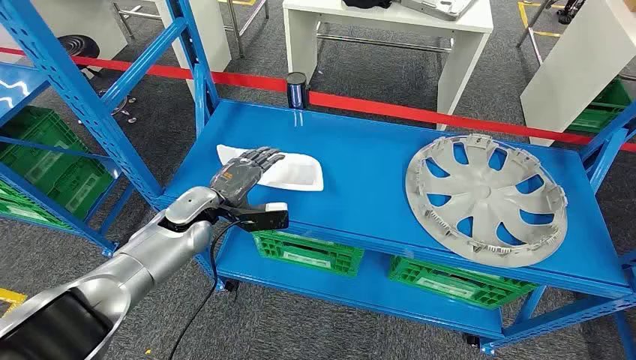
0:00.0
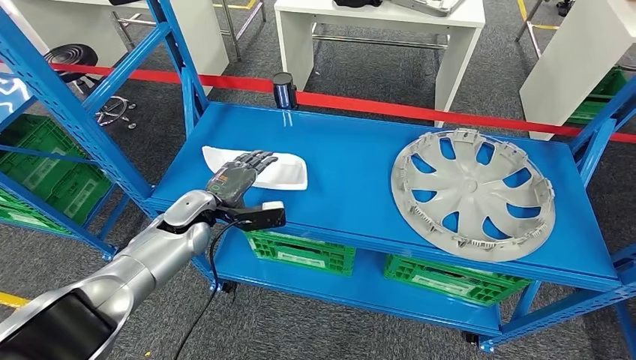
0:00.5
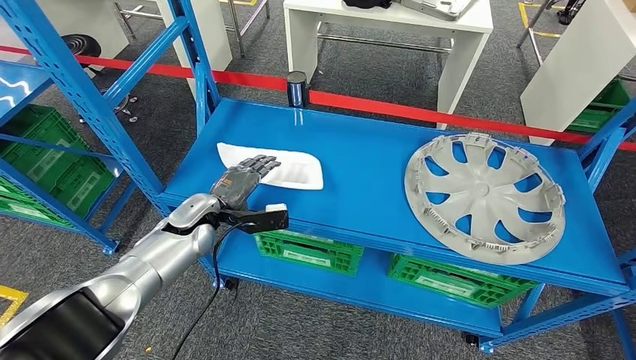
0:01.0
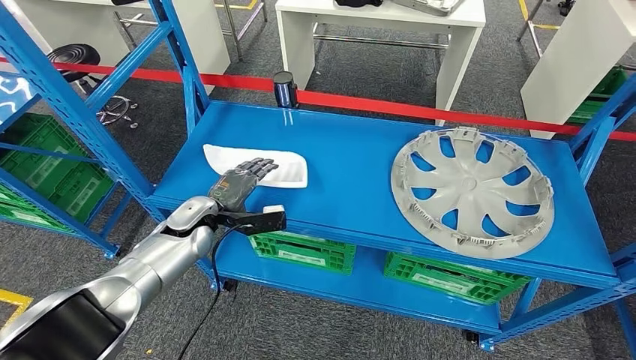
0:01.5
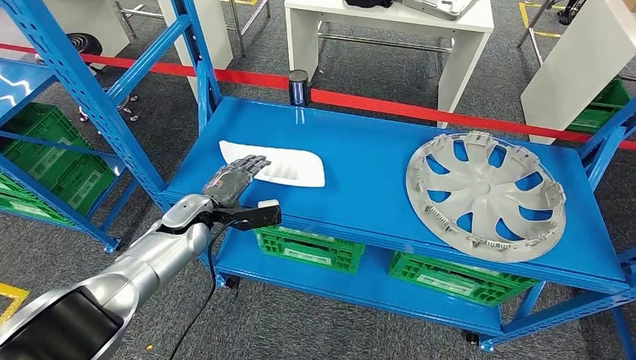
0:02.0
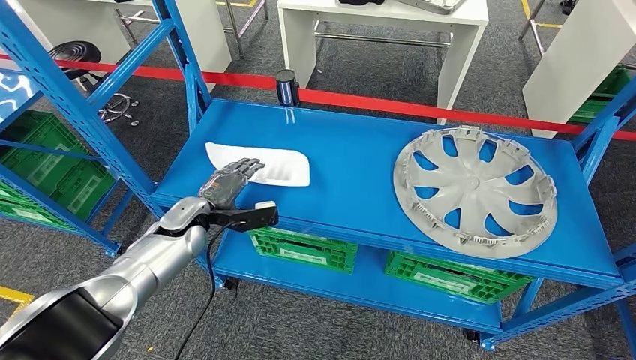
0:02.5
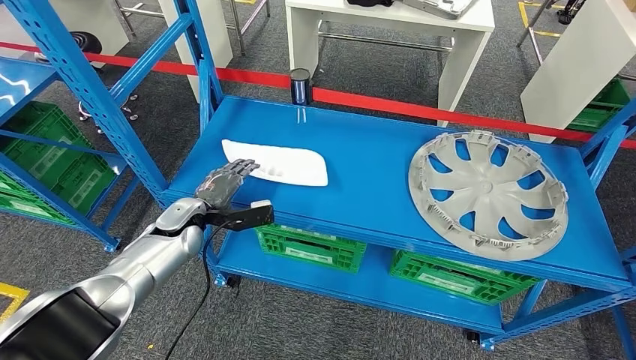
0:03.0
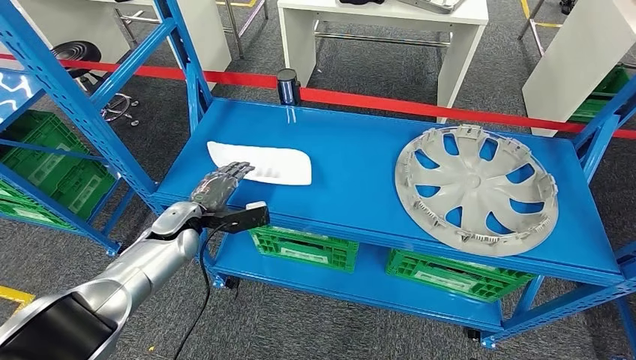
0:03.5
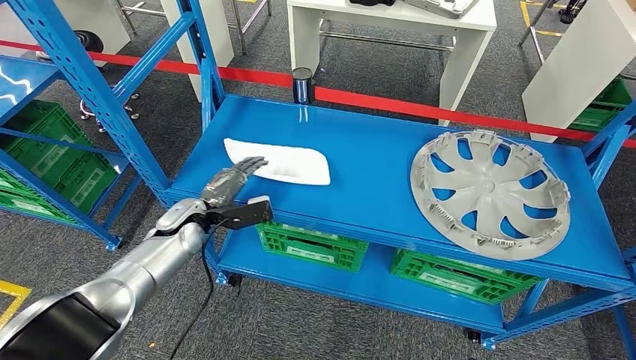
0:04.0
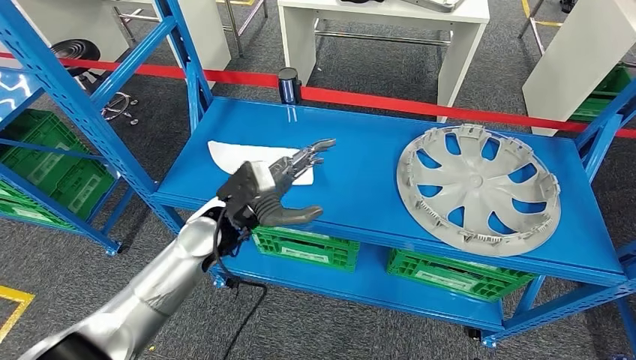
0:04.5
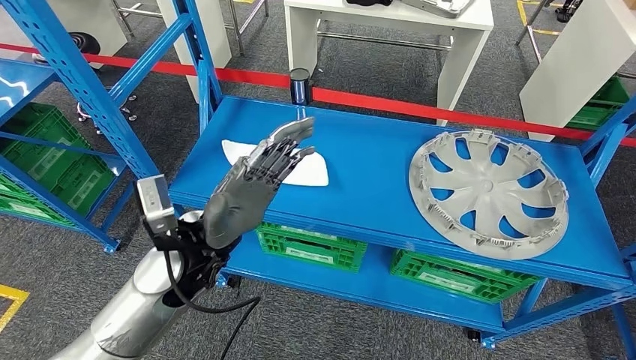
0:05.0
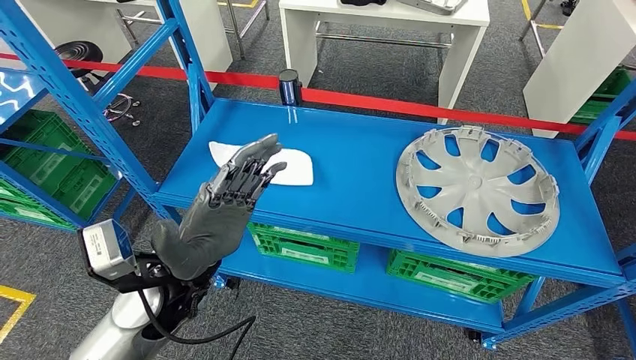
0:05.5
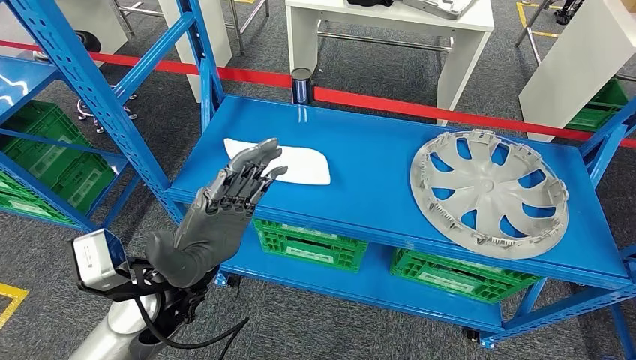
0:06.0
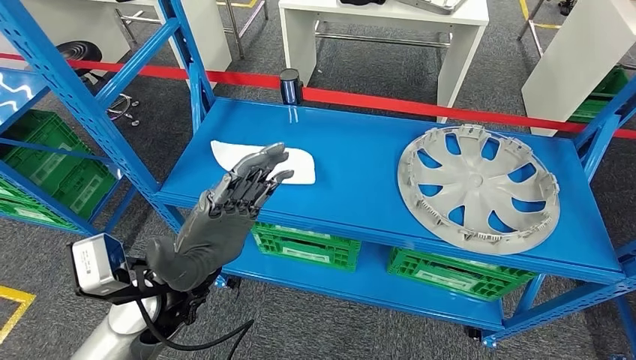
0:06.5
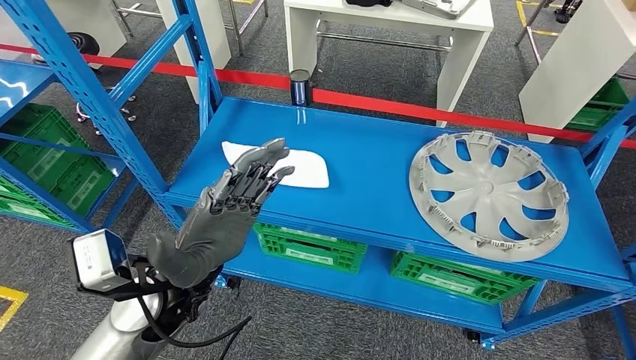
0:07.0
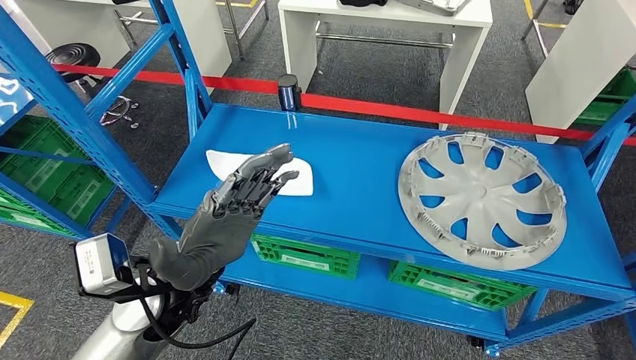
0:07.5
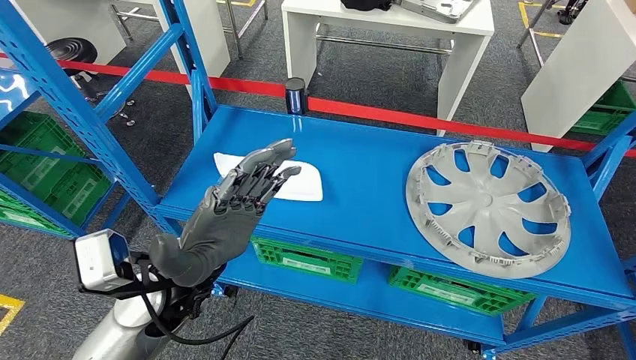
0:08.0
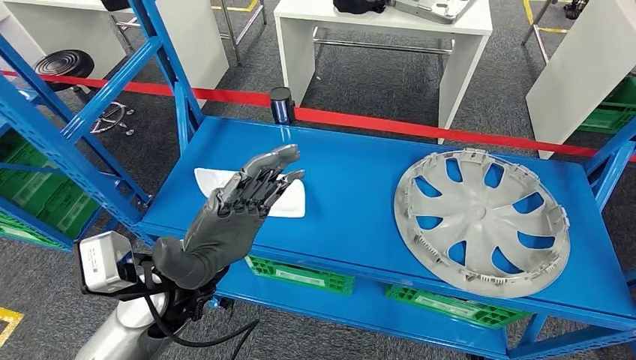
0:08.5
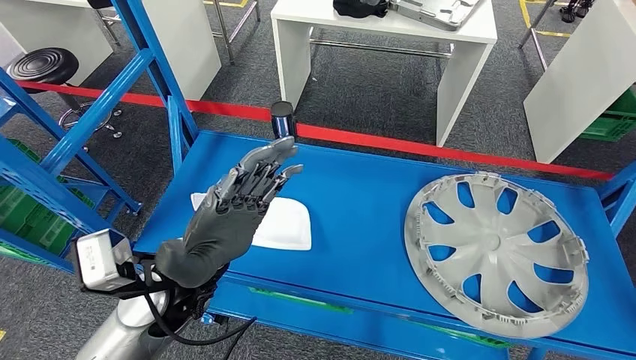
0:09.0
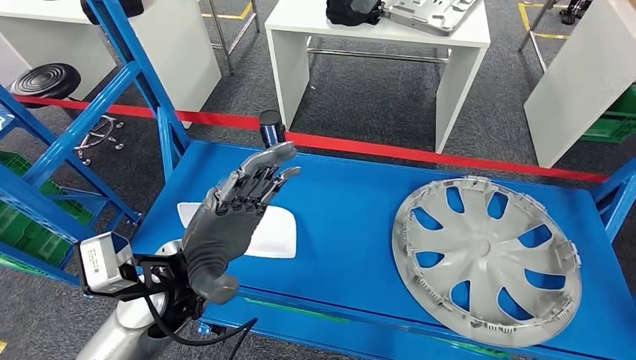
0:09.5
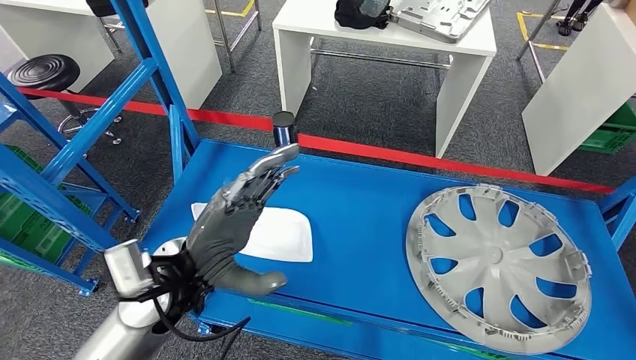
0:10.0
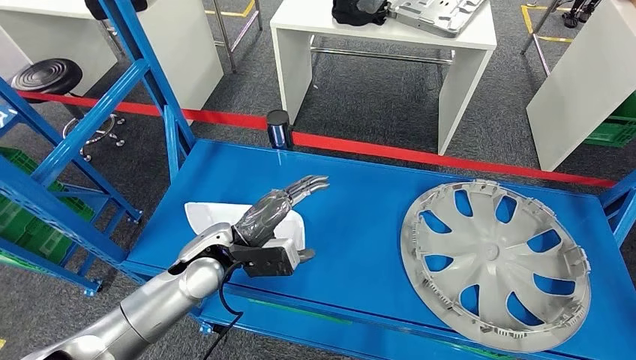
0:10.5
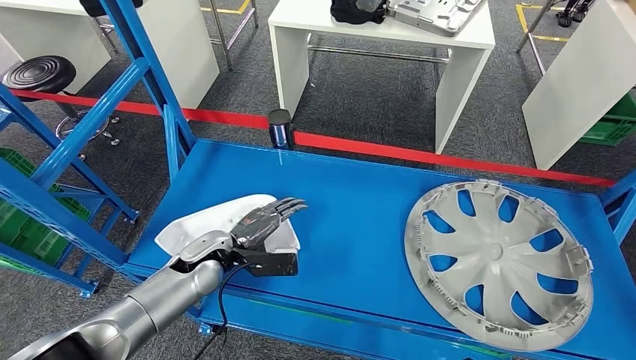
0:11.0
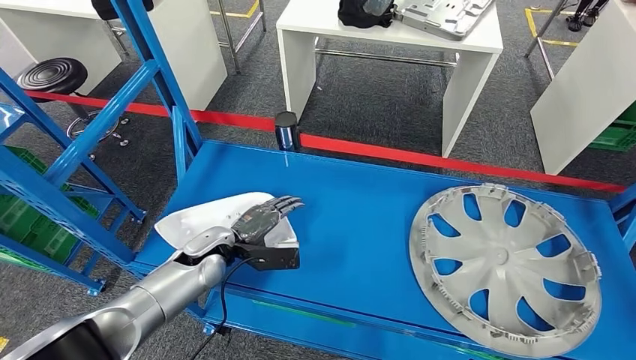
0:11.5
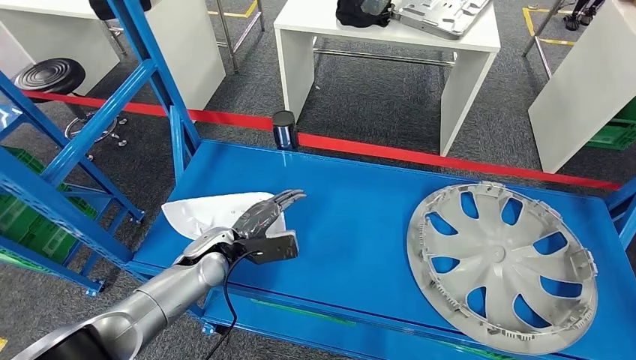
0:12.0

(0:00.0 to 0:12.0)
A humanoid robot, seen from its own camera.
0:02.0 - 0:04.0: The hands stay close to where they were, moving slightly.
0:04.0 - 0:06.0: The left hand is displaced backward, upward and to the right by about 20 cm.

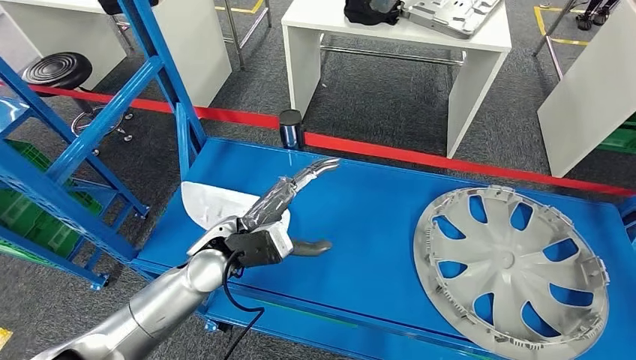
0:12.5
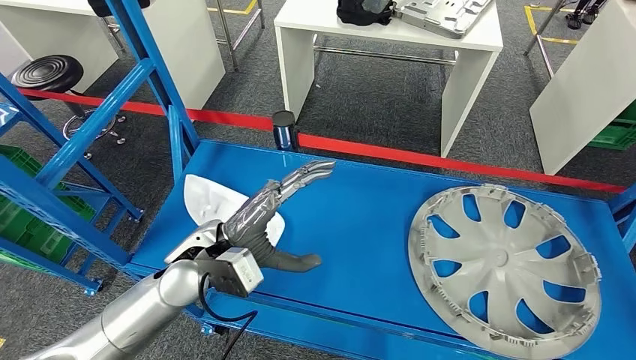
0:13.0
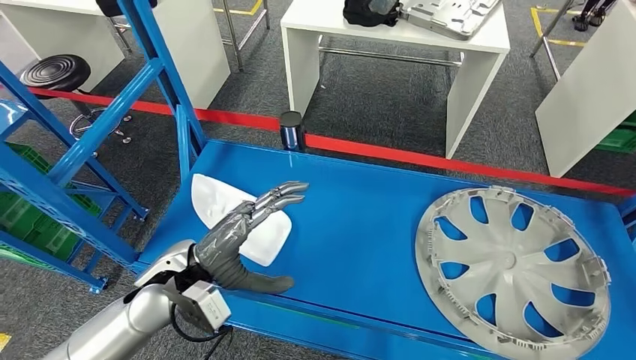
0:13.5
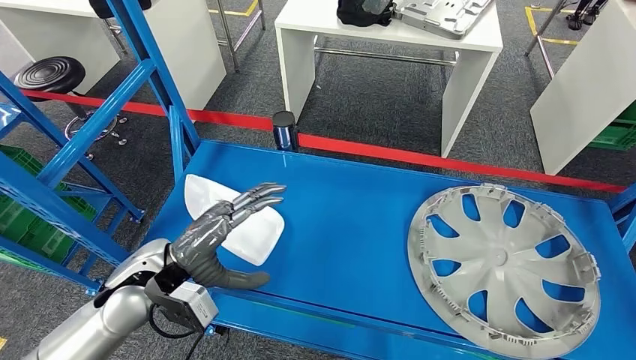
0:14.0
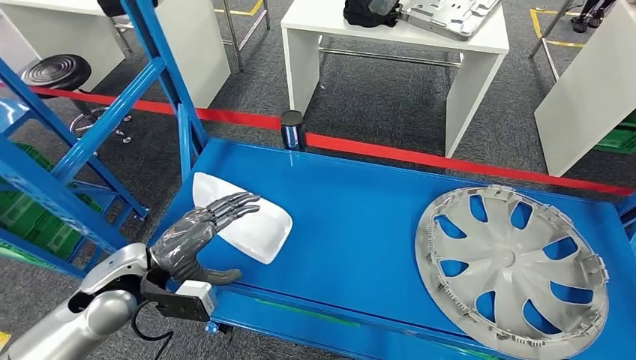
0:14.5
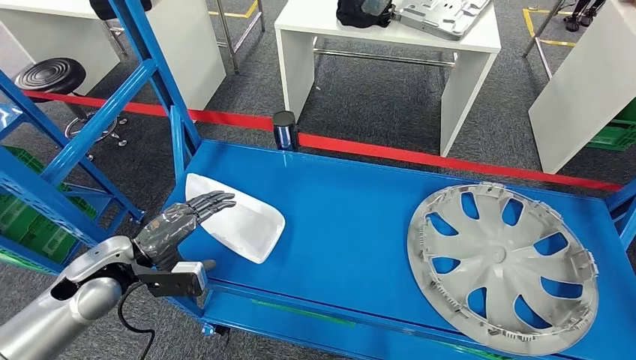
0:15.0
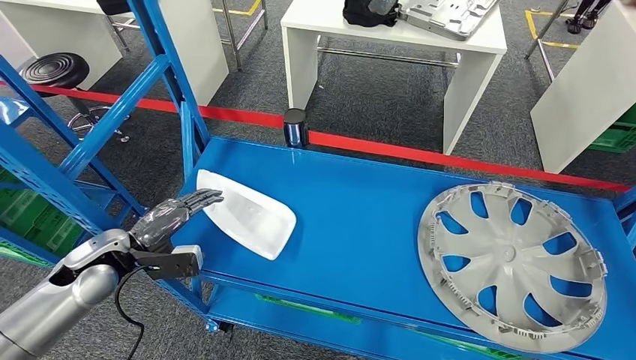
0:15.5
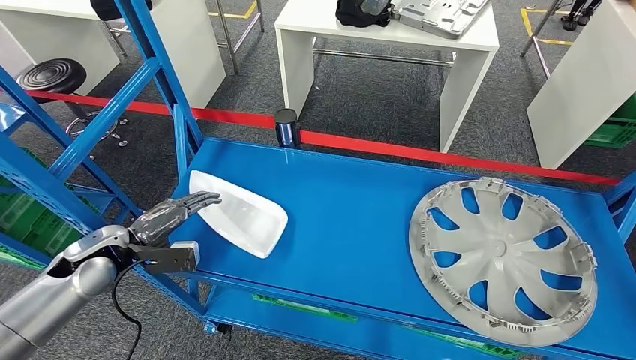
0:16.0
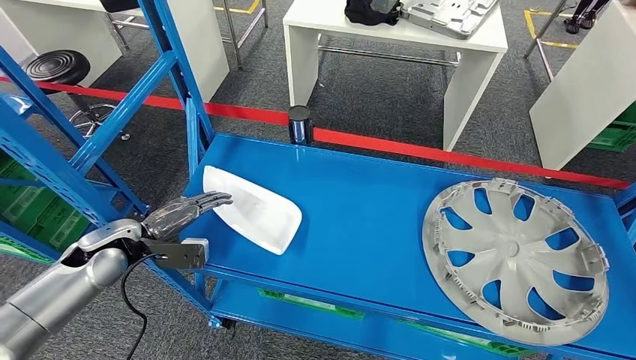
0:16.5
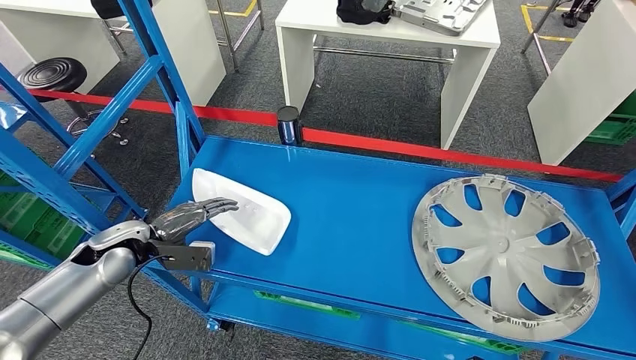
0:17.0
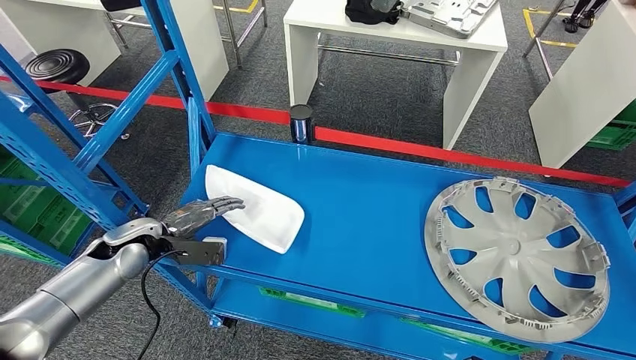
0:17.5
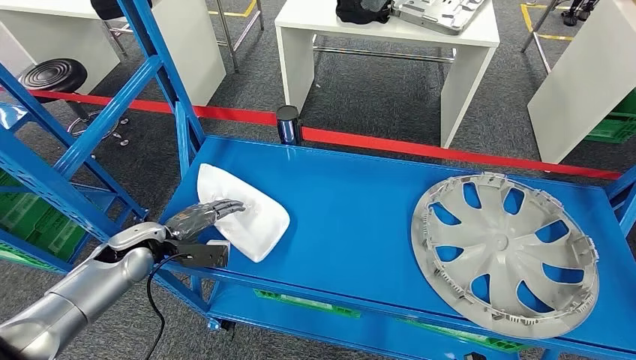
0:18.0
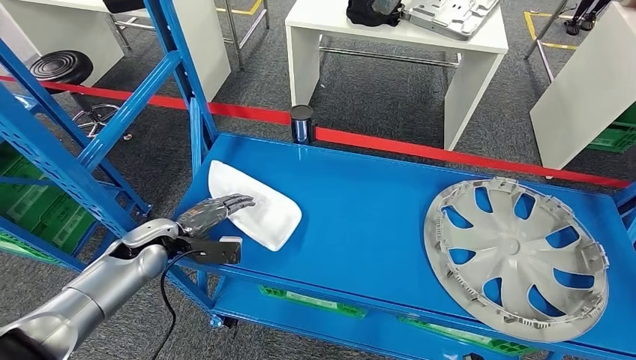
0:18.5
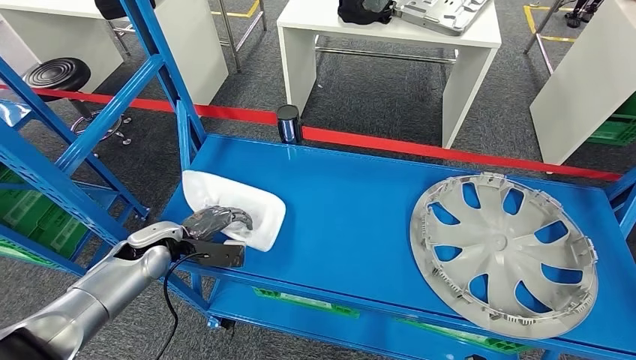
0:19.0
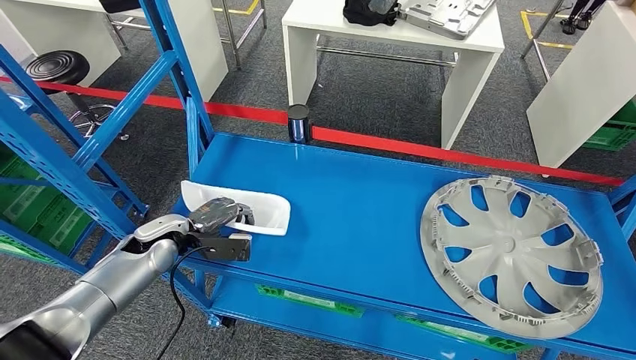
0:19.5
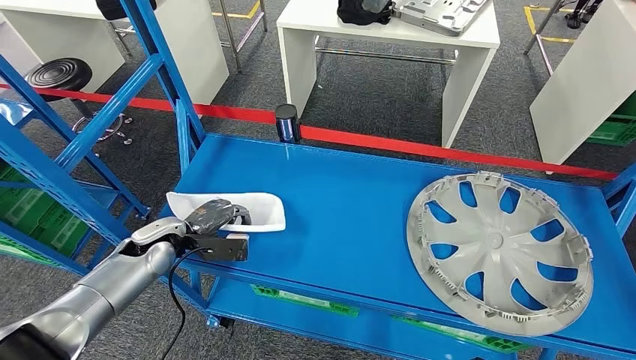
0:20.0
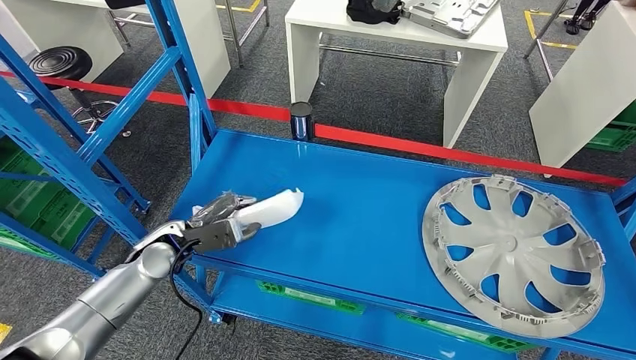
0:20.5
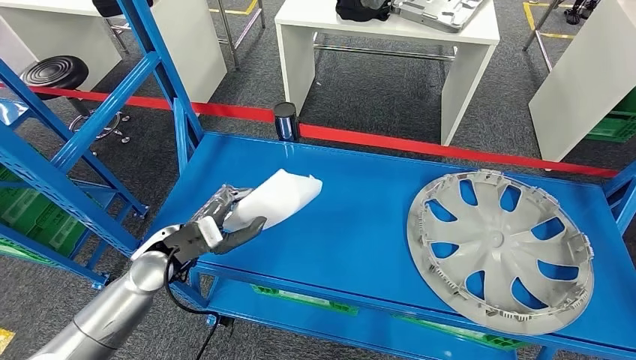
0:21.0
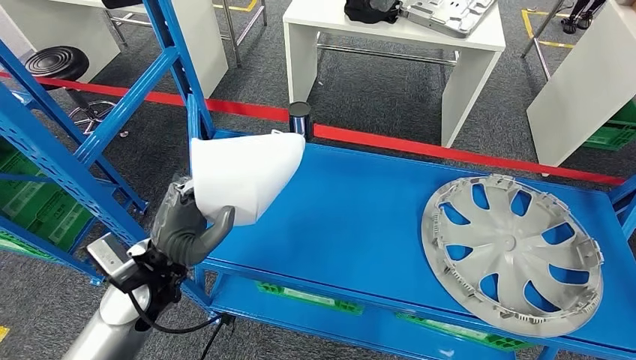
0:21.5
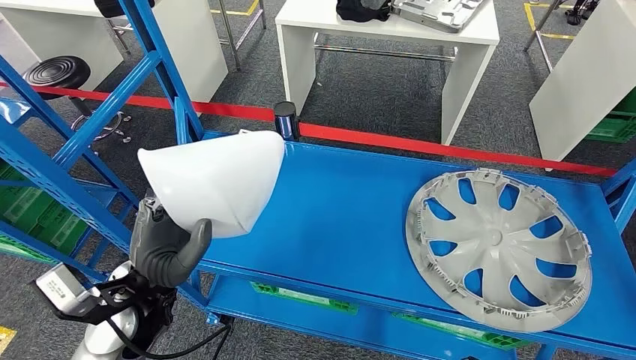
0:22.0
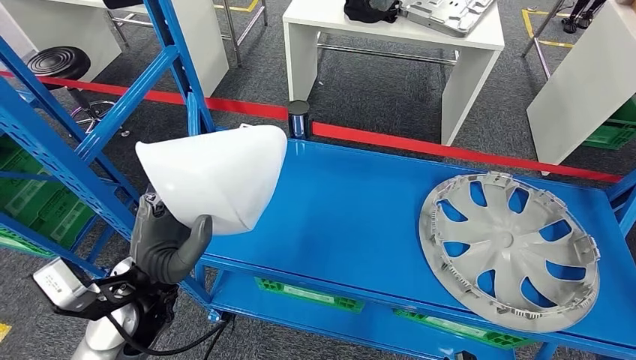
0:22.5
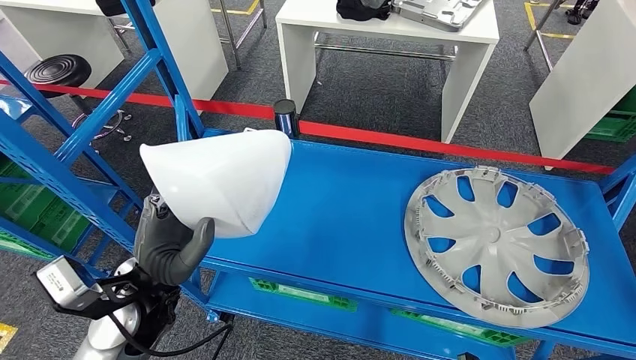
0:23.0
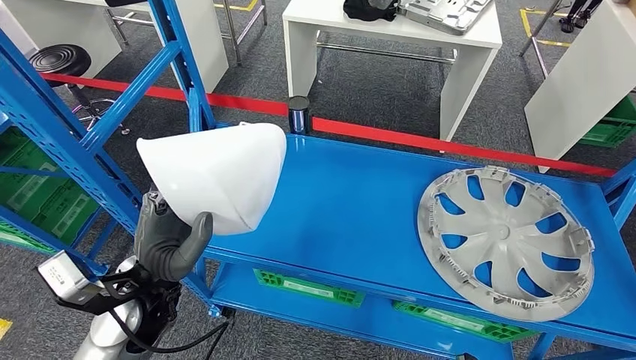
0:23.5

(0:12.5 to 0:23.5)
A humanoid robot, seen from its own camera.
Step, 0:12.5 - 0:21.0: Pick up the small component from the shelf.
0:12.5 - 0:14.5: The left hand shifts some 15 cm to the left.
0:18.0 - 0:20.0: The hands stay close to where they were, moving slightly.
